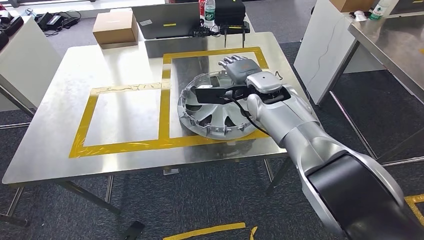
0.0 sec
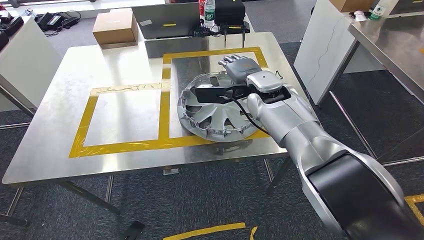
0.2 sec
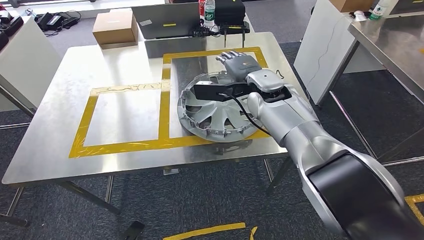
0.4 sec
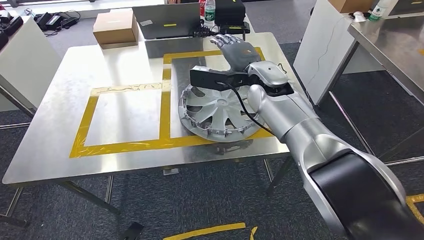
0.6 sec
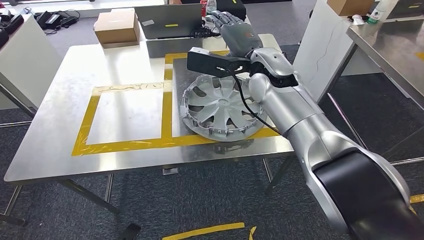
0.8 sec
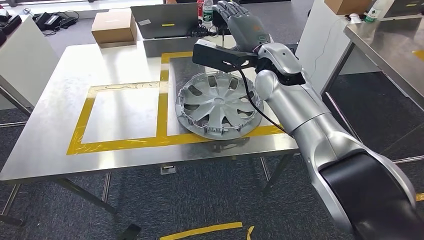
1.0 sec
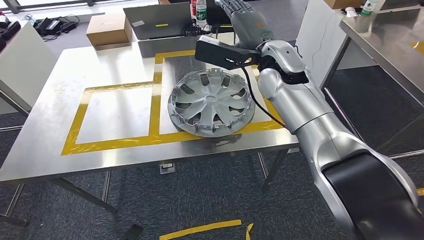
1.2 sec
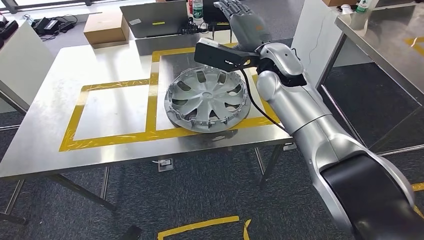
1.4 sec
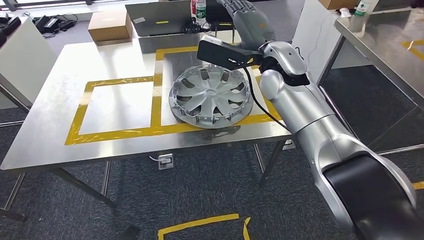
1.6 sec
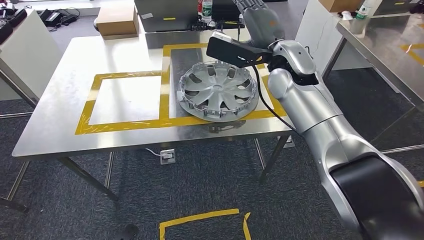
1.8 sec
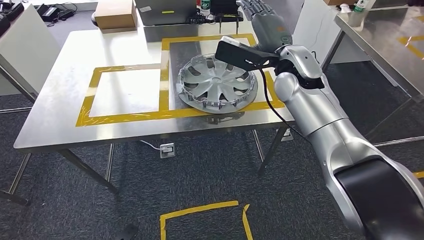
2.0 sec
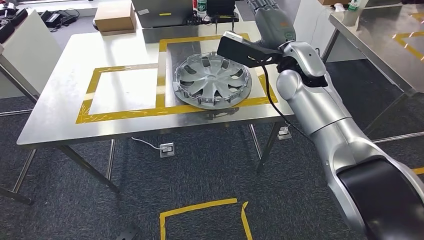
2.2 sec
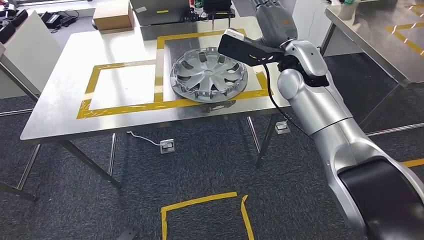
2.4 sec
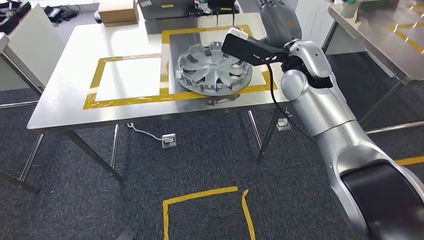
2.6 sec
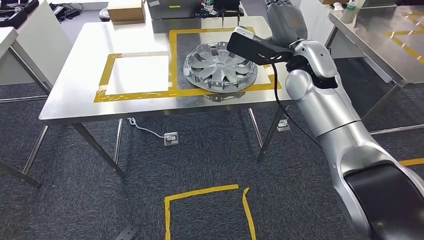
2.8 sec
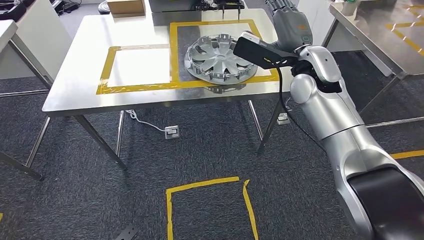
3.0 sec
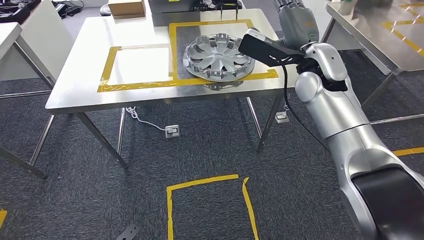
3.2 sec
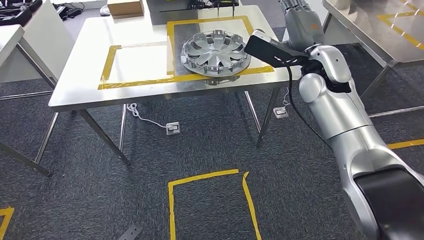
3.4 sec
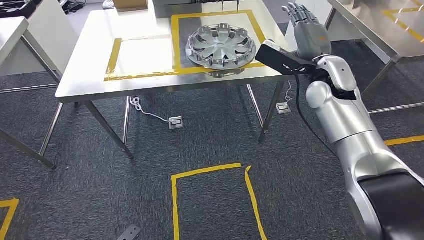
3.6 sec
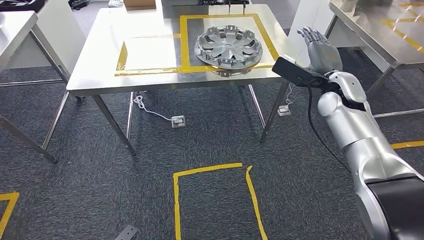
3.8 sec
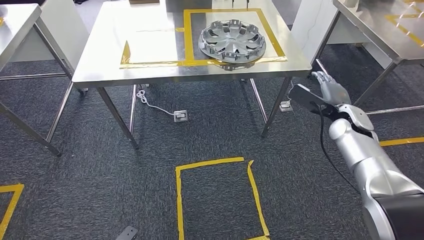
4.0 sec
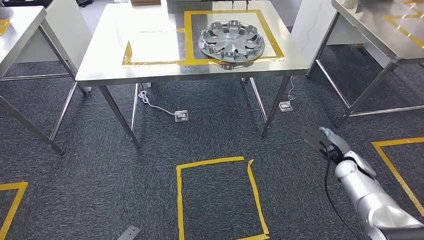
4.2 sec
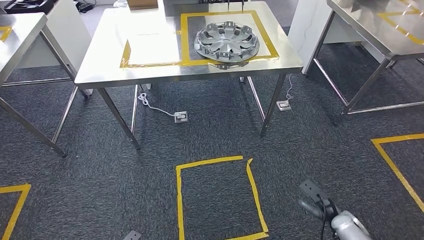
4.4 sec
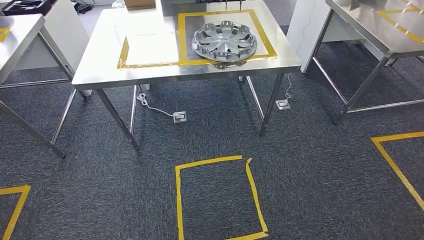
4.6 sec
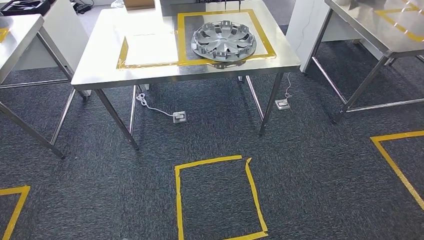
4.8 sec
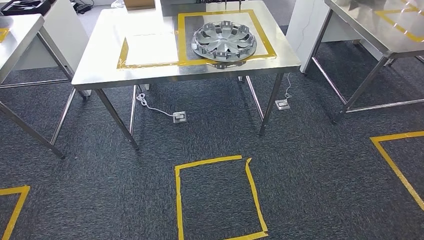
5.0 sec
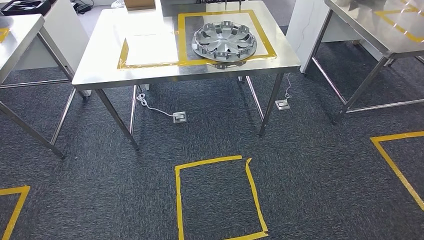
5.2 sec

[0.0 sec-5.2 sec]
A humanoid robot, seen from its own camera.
Step, 2.0 sec to 5.2 sec: Return to the initial position at the shelf.
